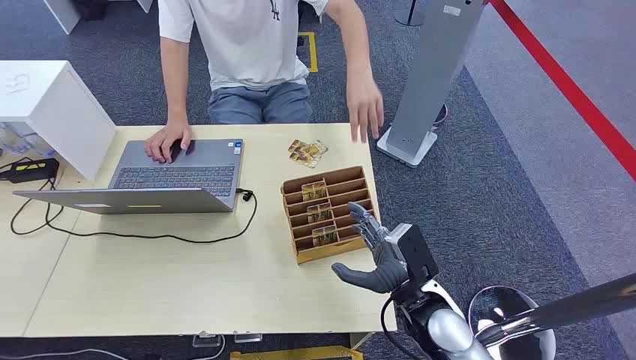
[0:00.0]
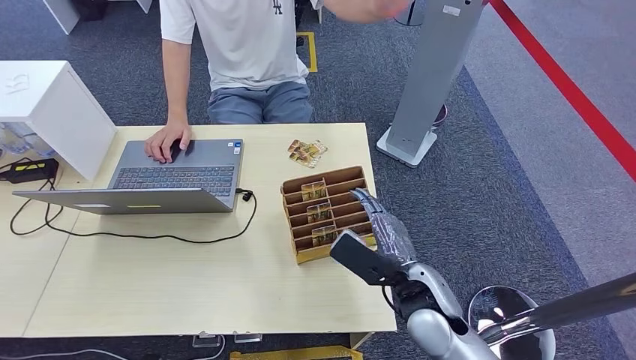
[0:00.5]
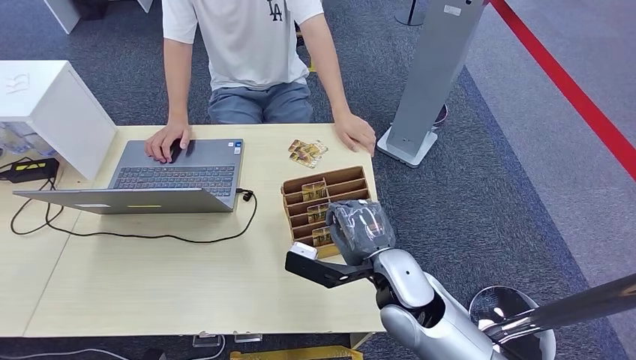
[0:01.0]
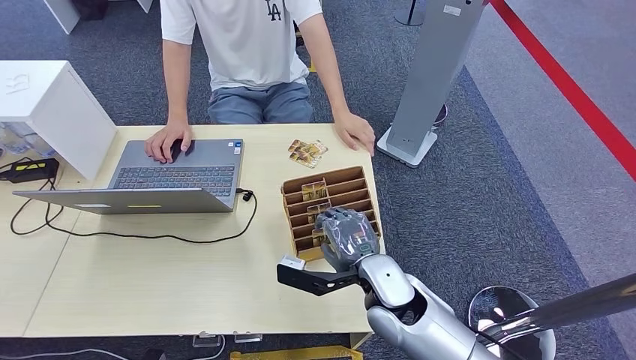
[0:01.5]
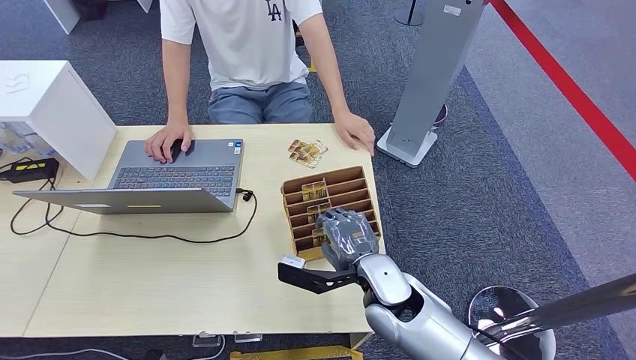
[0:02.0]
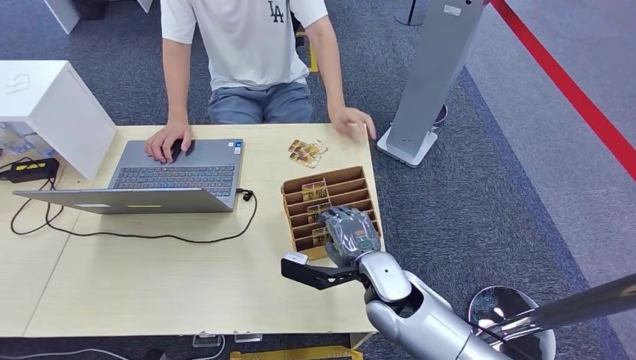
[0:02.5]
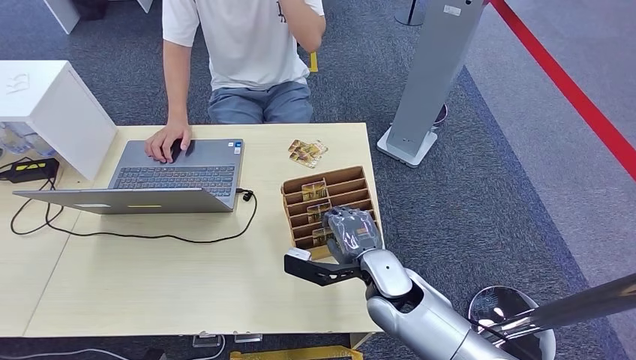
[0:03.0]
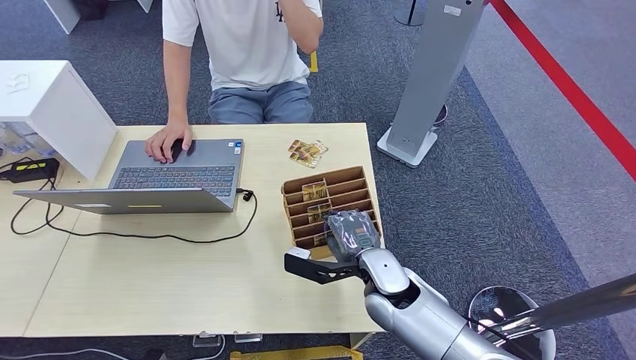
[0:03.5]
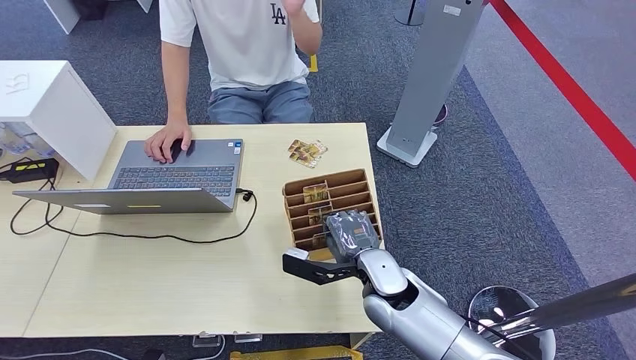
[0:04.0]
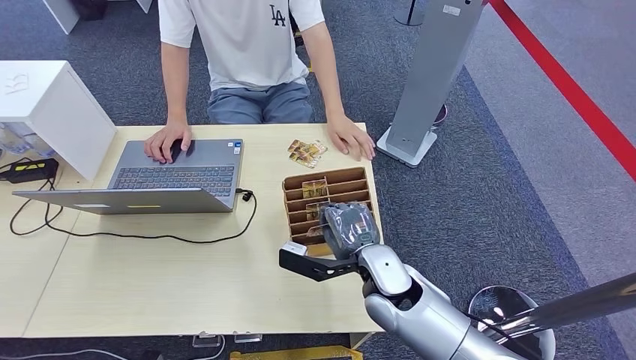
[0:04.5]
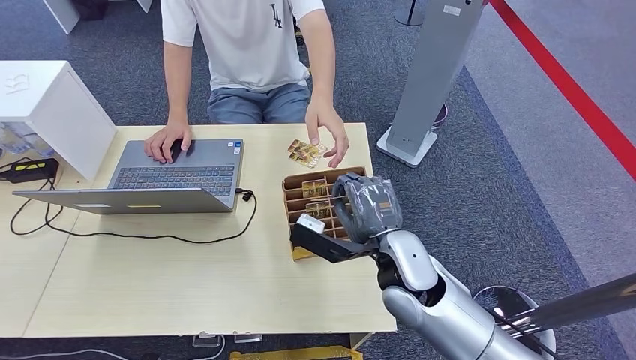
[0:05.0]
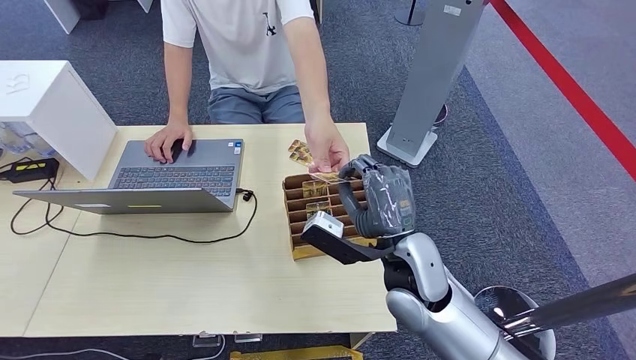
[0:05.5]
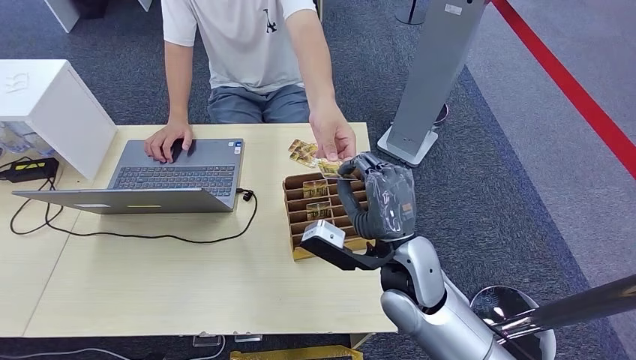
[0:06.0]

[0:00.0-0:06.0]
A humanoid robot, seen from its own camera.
Step, 0:00.0 to 0:04.5: Pick up the room card from the card holder.
Step, 0:05.0 to 0:06.0: Hand the room card to the target.
0:02.0 to 0:04.0: The hands make only small movements.
0:04.0 to 0:06.0: The right hand goes some 10 cm upward.
